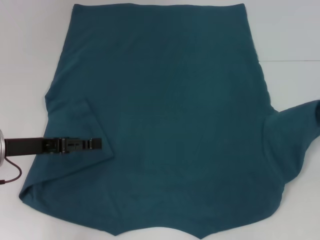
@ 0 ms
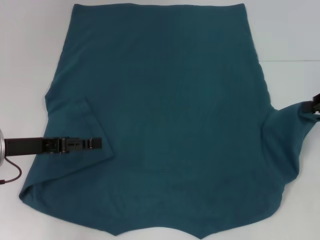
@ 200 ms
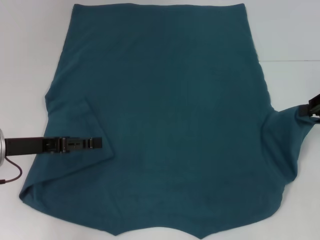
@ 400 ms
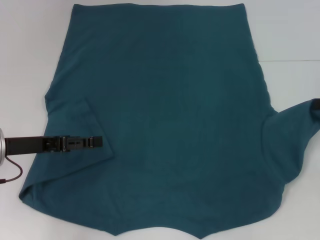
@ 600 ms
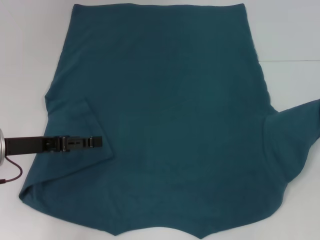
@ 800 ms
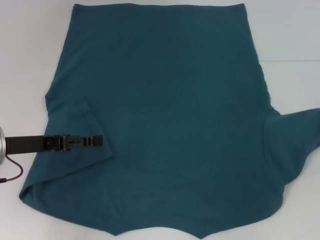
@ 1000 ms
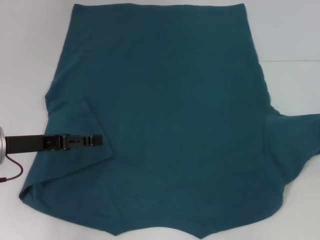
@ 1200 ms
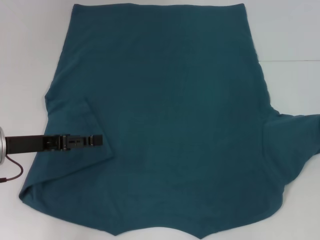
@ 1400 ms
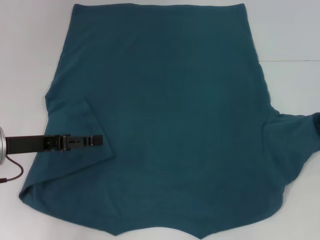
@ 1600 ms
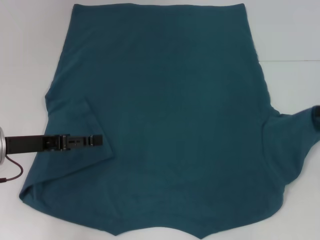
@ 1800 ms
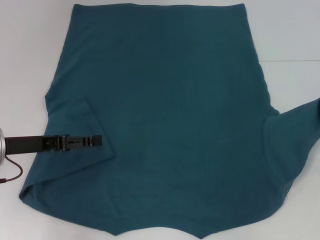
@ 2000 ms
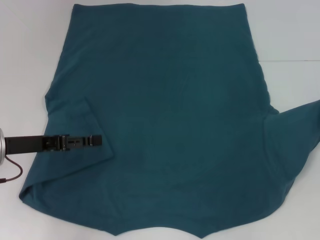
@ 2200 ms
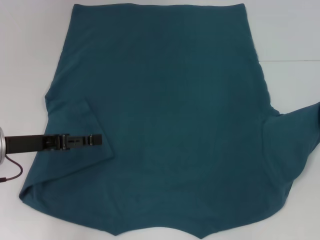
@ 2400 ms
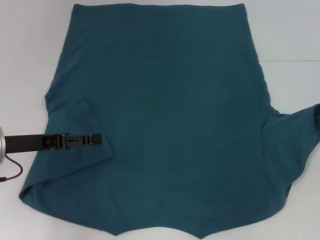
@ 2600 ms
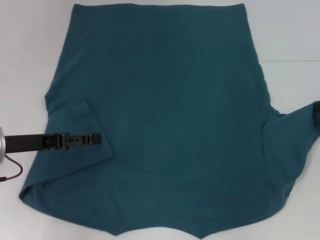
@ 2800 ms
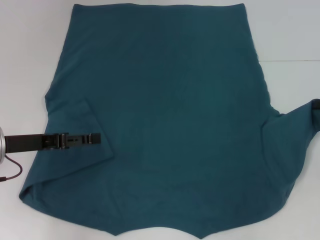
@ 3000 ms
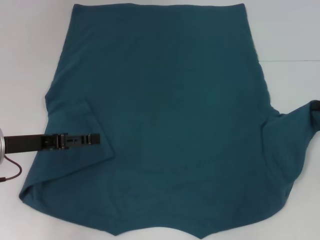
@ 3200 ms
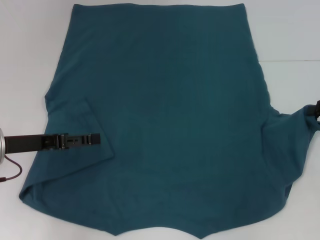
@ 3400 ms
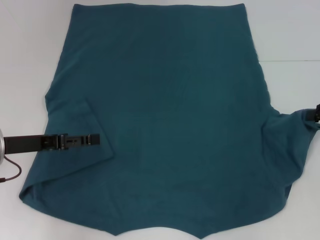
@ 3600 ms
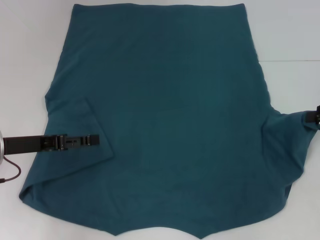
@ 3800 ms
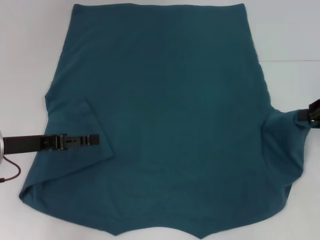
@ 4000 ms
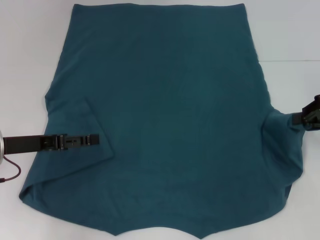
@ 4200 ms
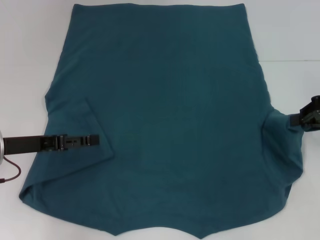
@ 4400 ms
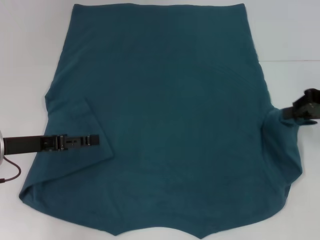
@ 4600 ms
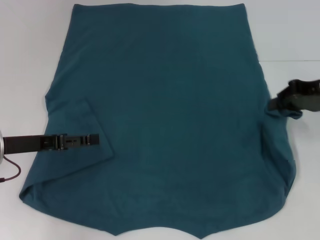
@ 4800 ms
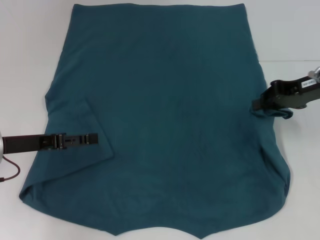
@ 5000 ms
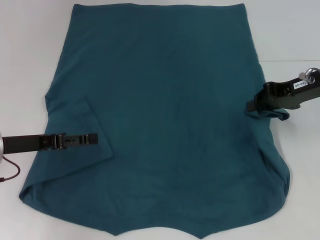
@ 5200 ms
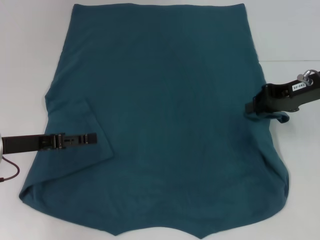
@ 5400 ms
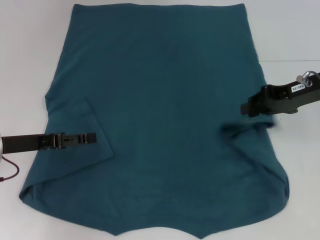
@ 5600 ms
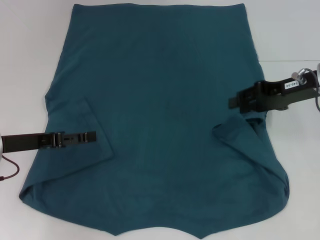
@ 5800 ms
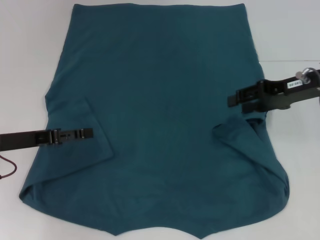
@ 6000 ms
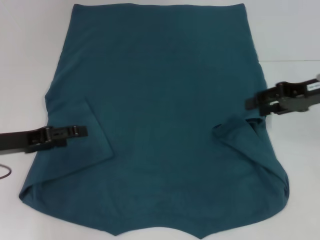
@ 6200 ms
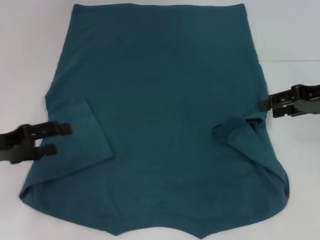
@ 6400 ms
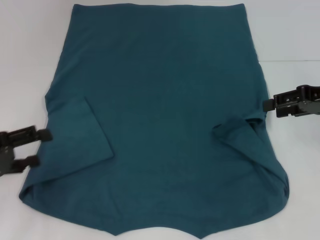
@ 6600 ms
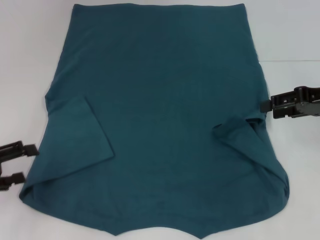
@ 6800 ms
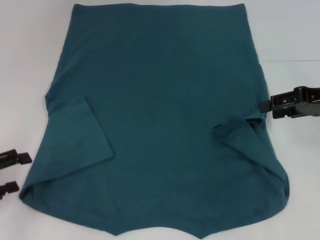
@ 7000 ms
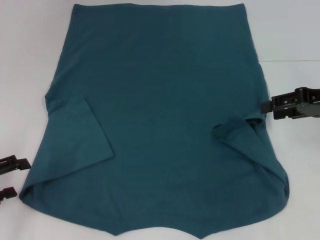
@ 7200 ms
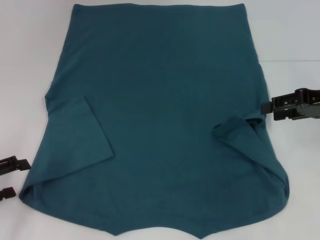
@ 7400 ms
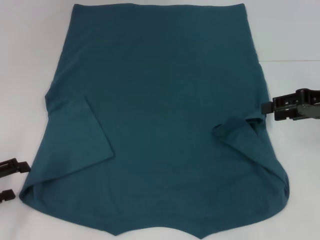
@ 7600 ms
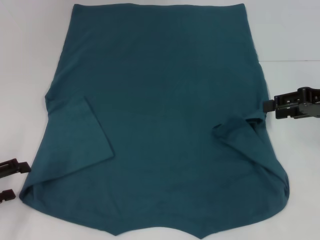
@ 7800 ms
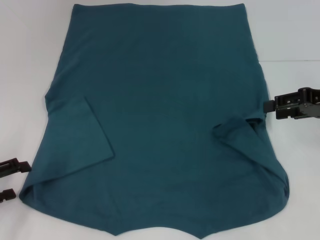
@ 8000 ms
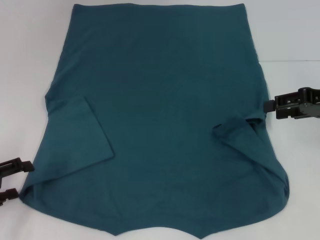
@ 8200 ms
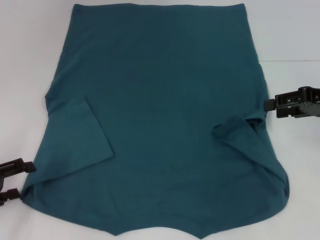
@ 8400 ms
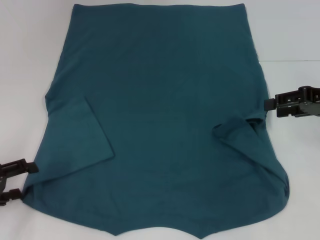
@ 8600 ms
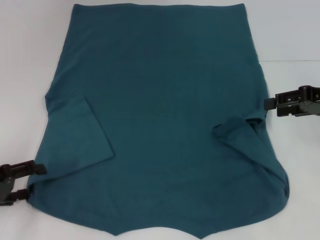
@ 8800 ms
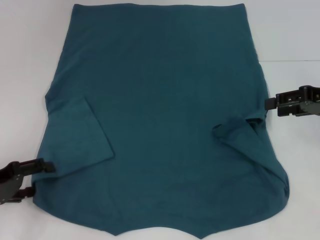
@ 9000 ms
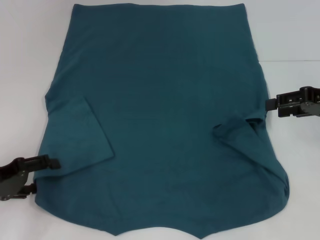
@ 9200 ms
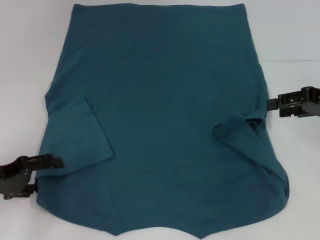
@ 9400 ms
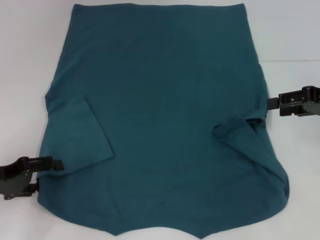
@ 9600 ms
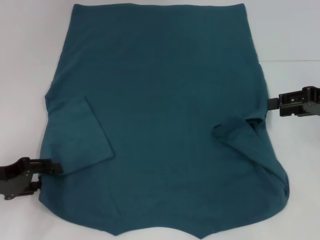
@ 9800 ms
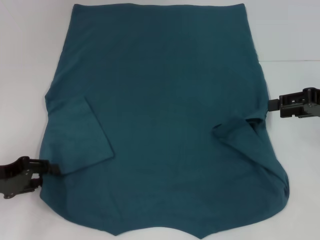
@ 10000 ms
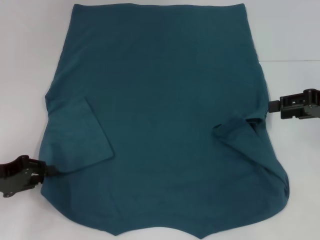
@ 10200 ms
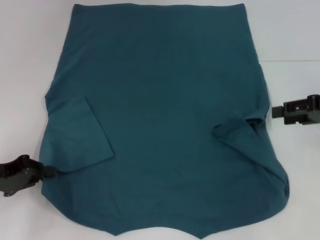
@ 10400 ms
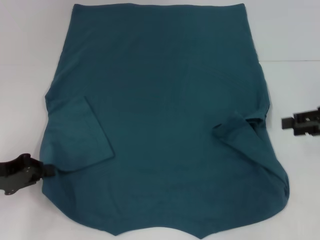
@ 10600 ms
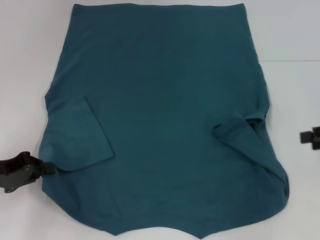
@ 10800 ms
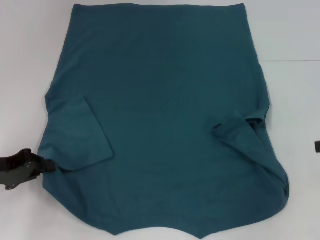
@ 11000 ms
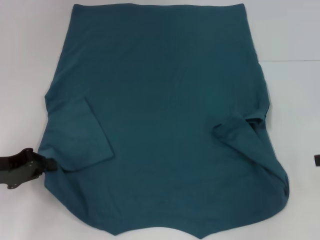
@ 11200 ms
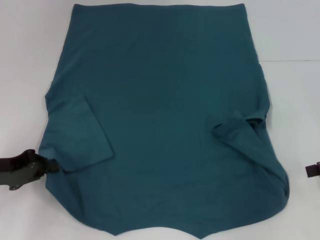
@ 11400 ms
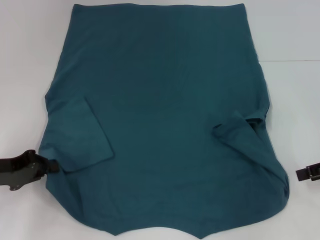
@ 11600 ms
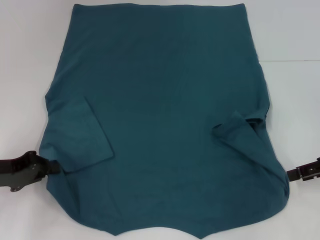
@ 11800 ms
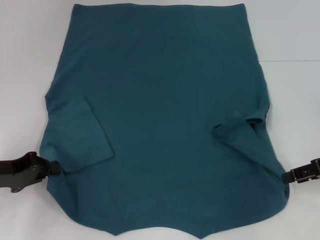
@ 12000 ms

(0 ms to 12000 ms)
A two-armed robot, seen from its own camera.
Step, 0 ms - 6200 ms: Fold the bottom right sleeve to the right.
Step, 6400 ms - 10200 ms: Grab the bottom left corner with your left hand.
0 ms - 3000 ms: There are only small adjustments of the grippers.
4400 ms - 6000 ms: The right gripper travels to the left by roughly 5 cm, and opens.
6000 ms - 7600 ms: The right gripper goes some 5 cm to the right. Meanwhile the left gripper is displaced to the left and backward by about 10 cm.
7600 ms - 9000 ms: There are only small adjustments of the grippers.
9000 ms - 10400 ms: The left gripper closes.
10400 ms - 12000 ms: The right gripper changes place by roughly 5 cm.

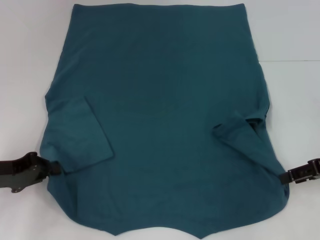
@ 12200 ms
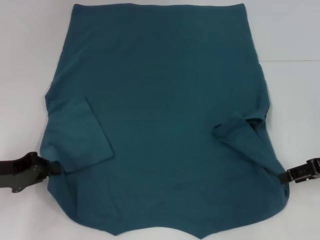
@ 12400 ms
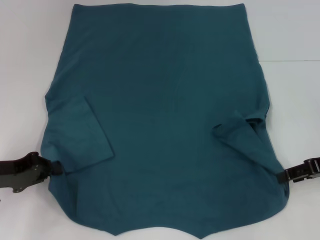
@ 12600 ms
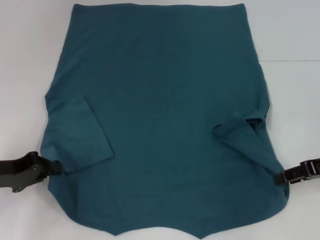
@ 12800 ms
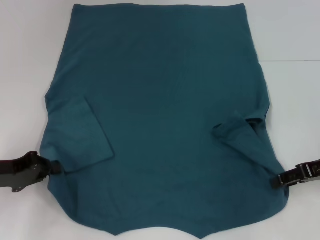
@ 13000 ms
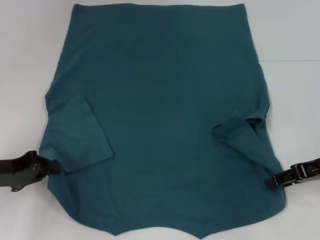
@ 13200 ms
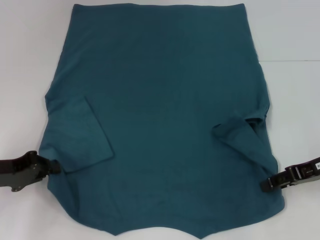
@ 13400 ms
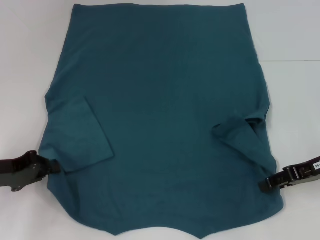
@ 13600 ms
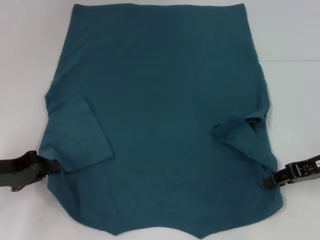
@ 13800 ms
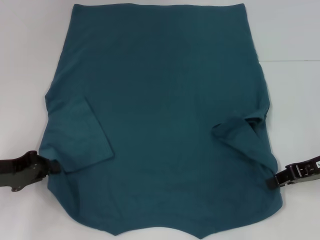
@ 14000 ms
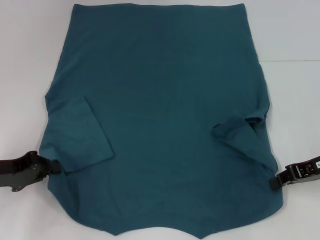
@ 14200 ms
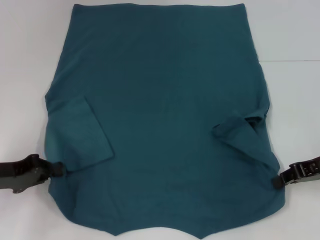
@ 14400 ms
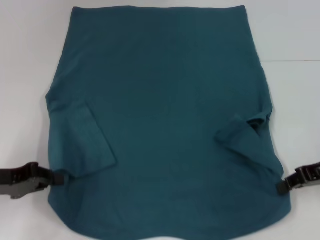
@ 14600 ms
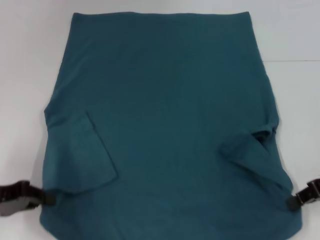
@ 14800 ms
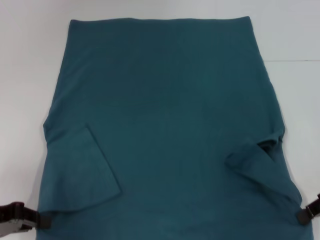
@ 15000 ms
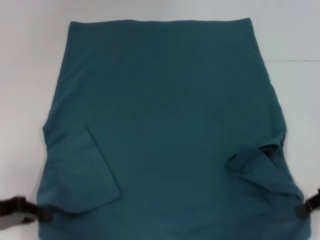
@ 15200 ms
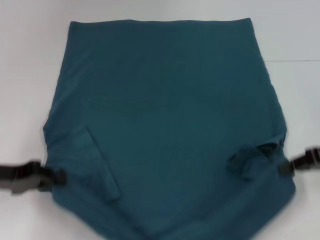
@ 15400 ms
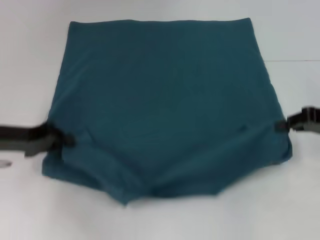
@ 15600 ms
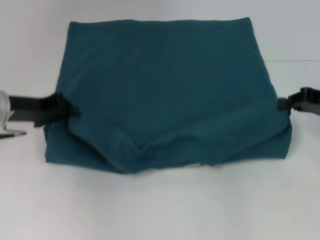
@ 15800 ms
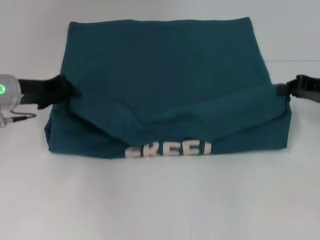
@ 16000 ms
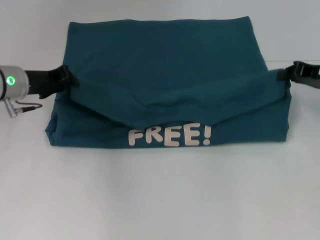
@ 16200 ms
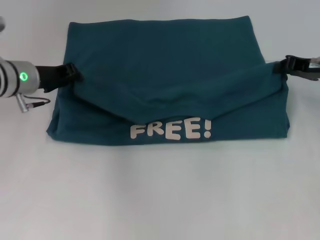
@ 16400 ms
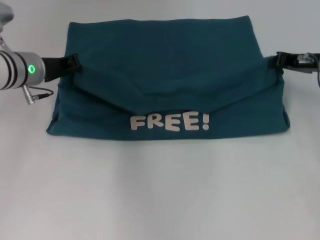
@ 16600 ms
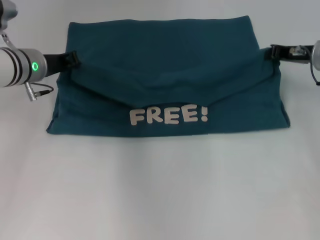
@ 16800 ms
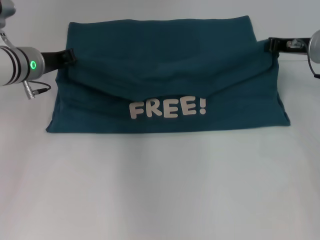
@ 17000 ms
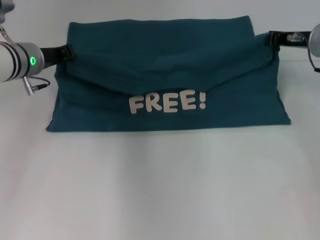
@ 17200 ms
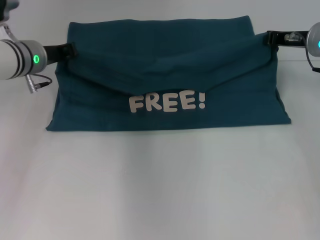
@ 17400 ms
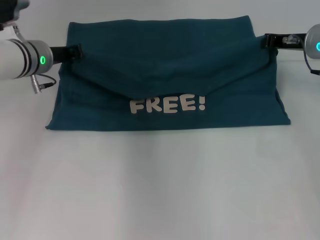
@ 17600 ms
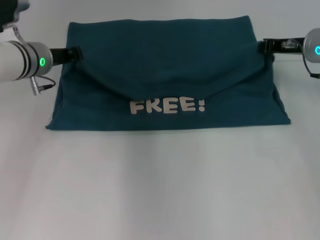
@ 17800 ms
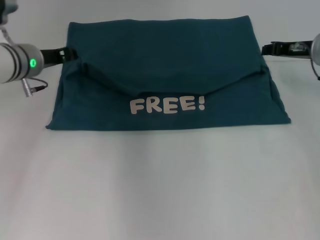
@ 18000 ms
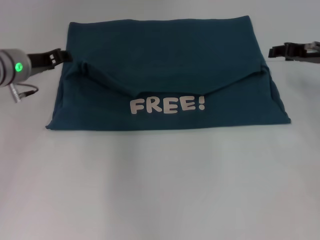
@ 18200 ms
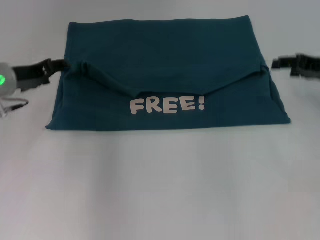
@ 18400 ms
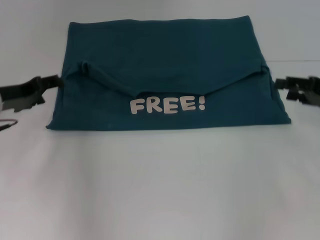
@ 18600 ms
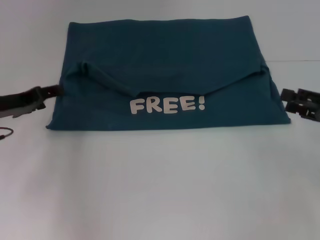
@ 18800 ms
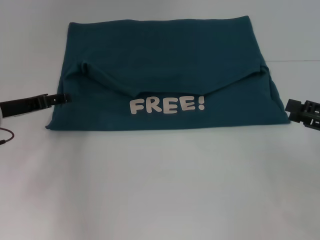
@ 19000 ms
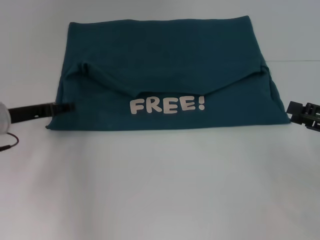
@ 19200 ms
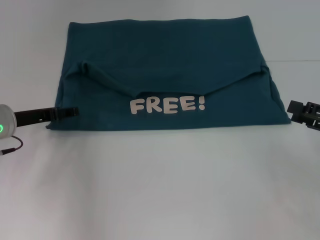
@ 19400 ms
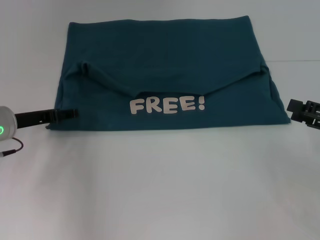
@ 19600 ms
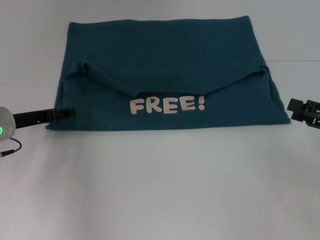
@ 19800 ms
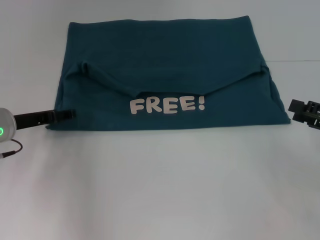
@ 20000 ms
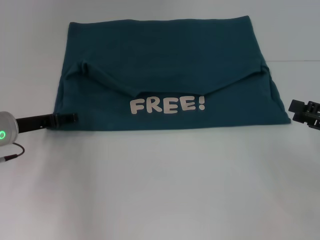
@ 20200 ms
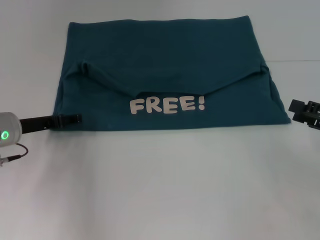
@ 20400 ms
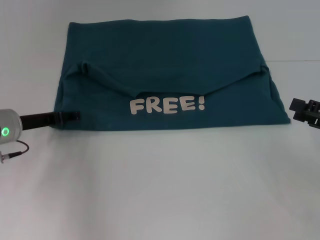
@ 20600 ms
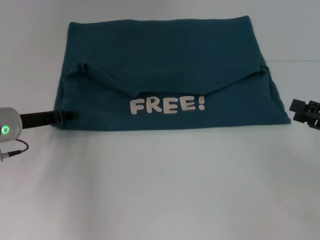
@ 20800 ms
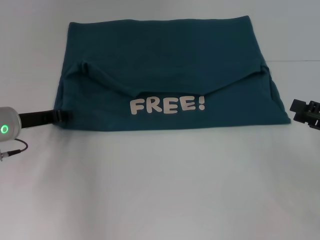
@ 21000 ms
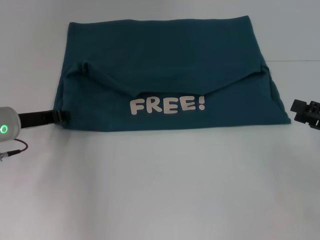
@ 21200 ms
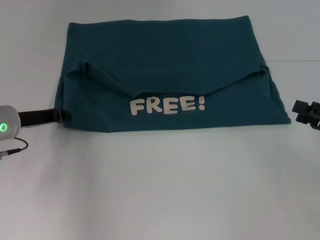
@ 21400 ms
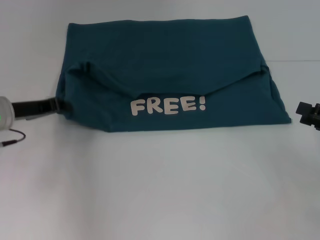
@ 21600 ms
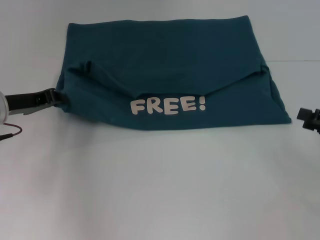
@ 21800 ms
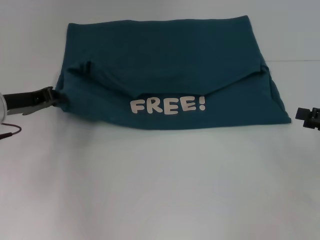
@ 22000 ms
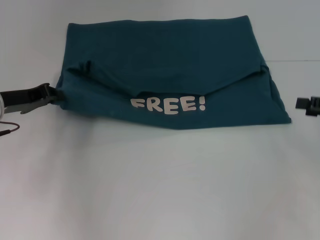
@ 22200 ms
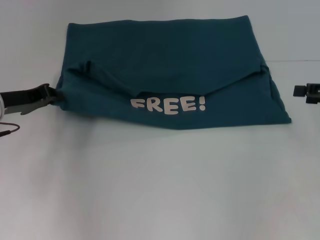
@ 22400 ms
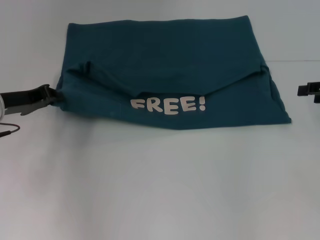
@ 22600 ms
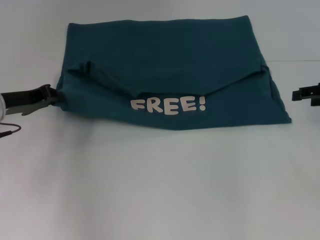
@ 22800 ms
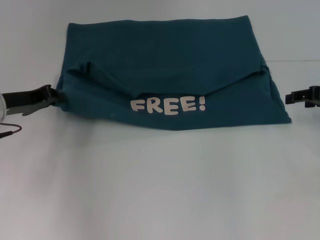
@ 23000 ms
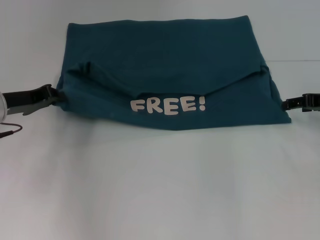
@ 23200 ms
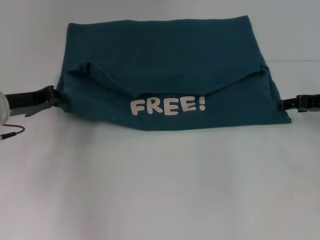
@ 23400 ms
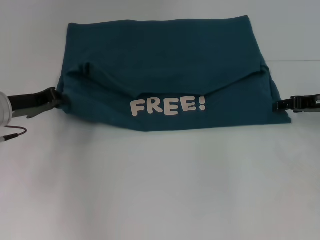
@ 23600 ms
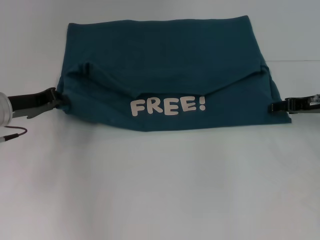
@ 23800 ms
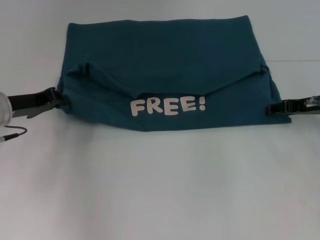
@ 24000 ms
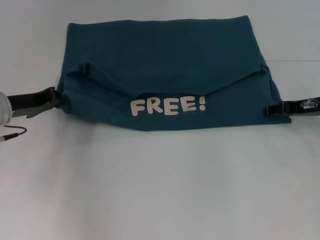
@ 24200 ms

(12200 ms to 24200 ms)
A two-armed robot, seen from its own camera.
Step, 14400 ms - 17800 ms: Fold the clothes to the left.
Step, 14400 ms - 17800 ms: Fold the clothes to the right.
12200 ms - 13800 ms: The grippers move only a little.
13800 ms - 15200 ms: The right gripper closes.
15200 ms - 16600 ms: The left gripper moves forward and to the right, about 20 cm. Meanwhile the right gripper is displaced forward by some 15 cm.
16600 ms - 18200 ms: There are only small adjustments of the grippers.
18200 ms - 19800 ms: The right gripper is displaced backward by roughly 15 cm, and opens, while the left gripper moves backward and downward, some 10 cm, and opens.
19800 ms - 21200 ms: The left gripper closes.
21200 ms - 22600 ms: The right gripper is displaced forward by some 10 cm. The left gripper closes.
22600 ms - 24200 ms: The right gripper is displaced to the left and downward by some 10 cm.
